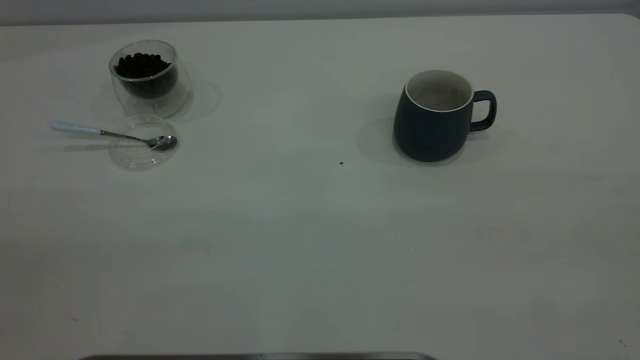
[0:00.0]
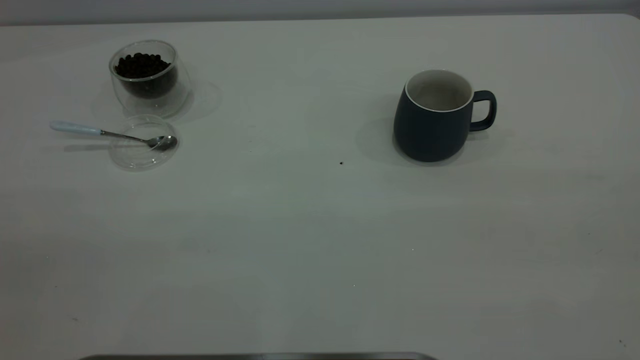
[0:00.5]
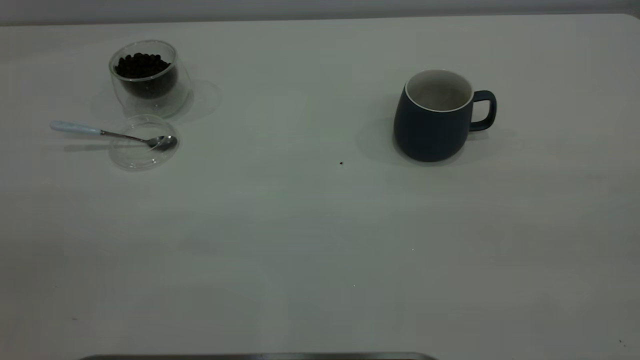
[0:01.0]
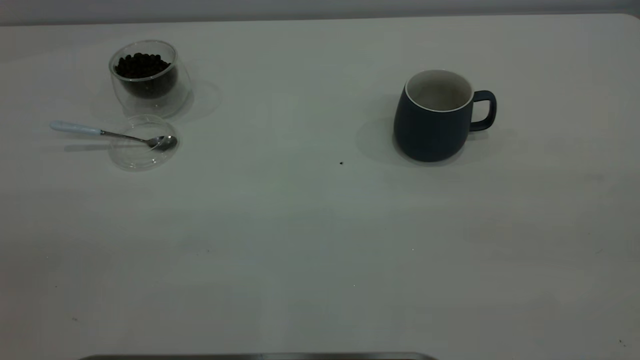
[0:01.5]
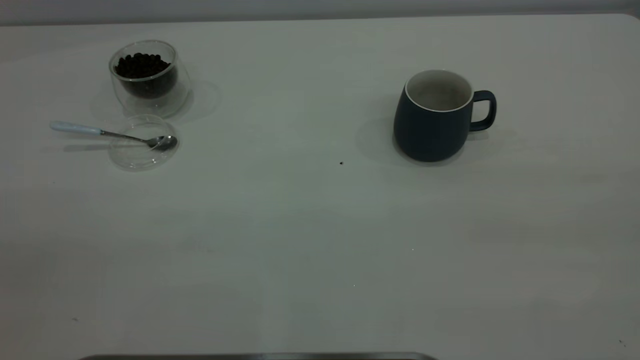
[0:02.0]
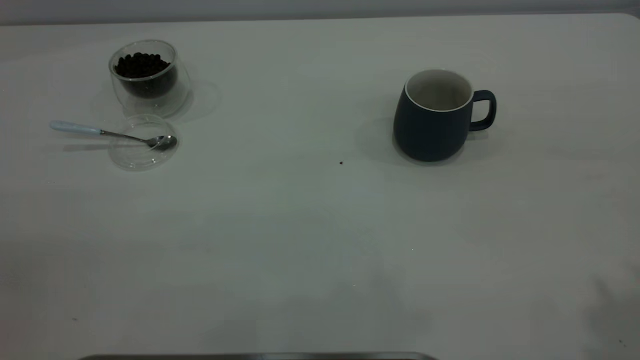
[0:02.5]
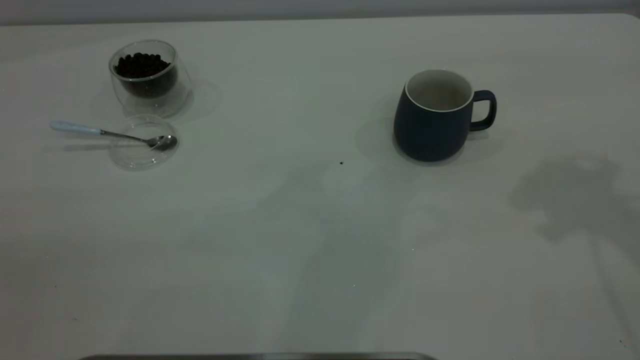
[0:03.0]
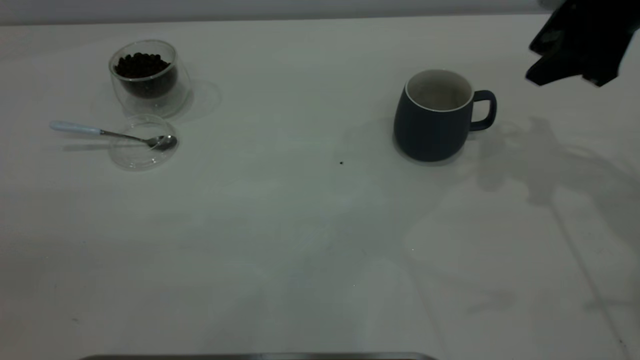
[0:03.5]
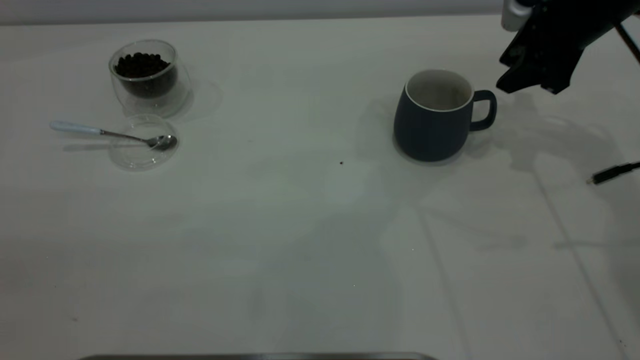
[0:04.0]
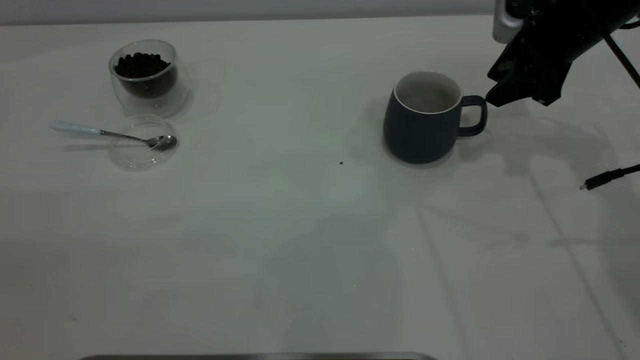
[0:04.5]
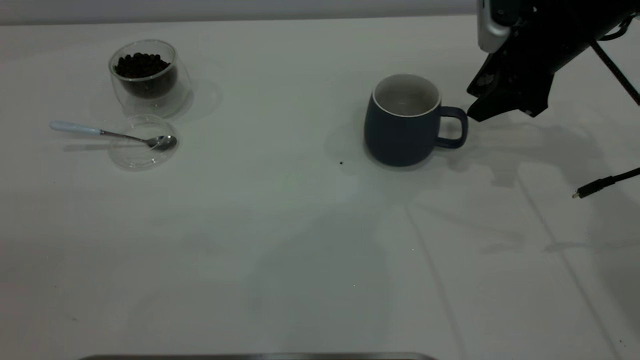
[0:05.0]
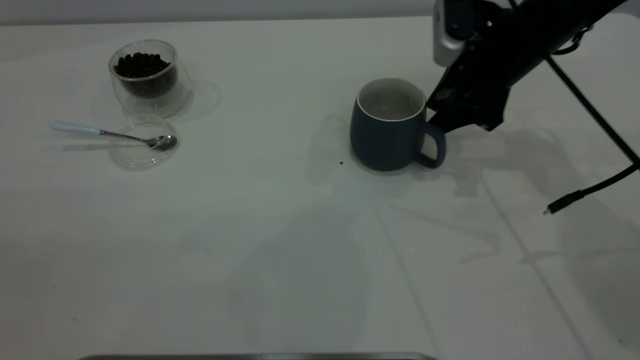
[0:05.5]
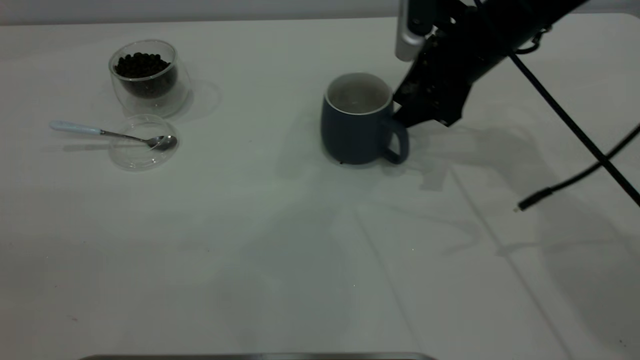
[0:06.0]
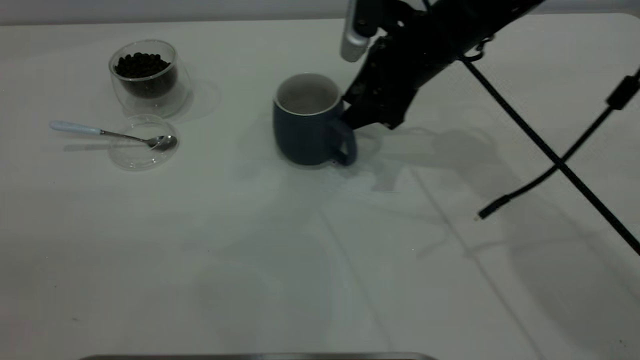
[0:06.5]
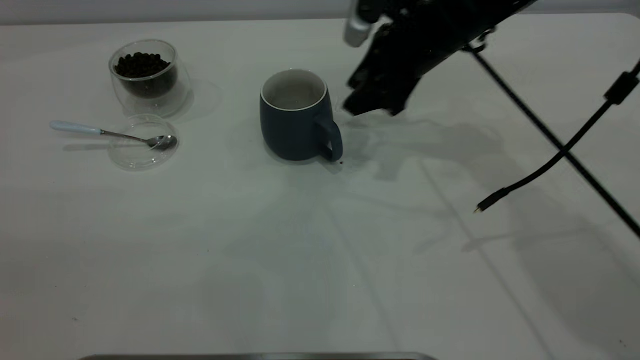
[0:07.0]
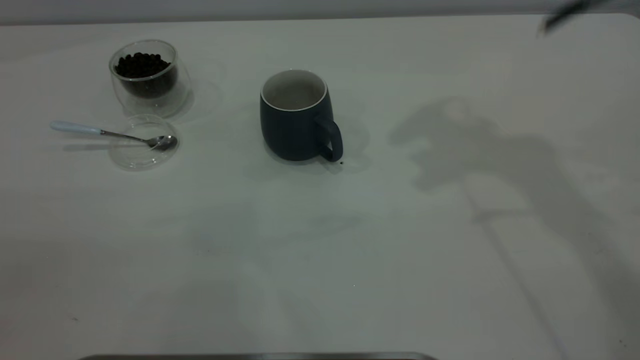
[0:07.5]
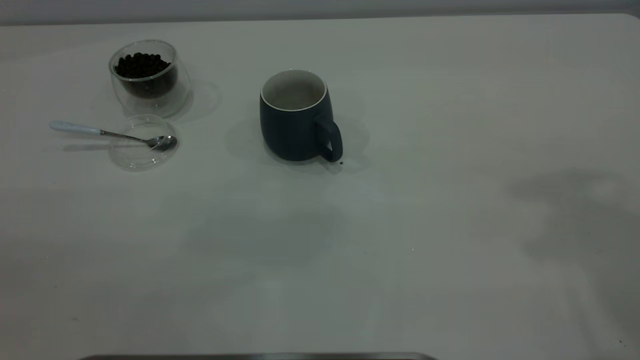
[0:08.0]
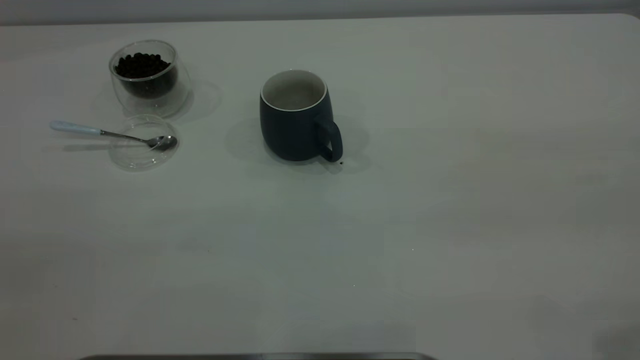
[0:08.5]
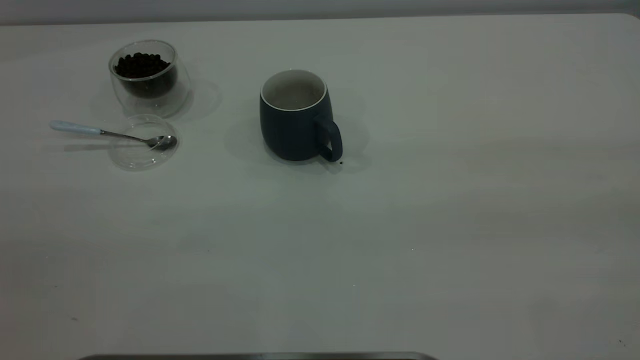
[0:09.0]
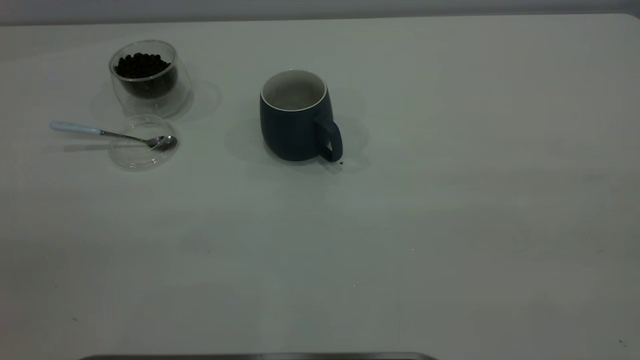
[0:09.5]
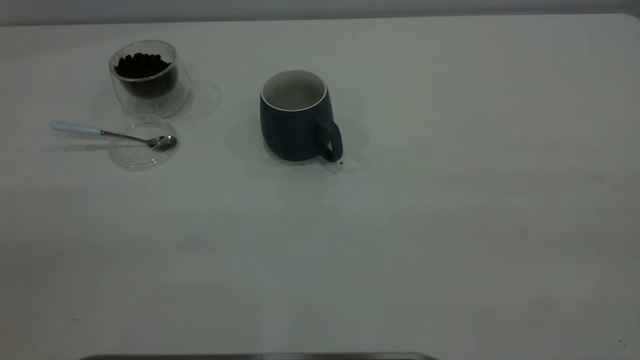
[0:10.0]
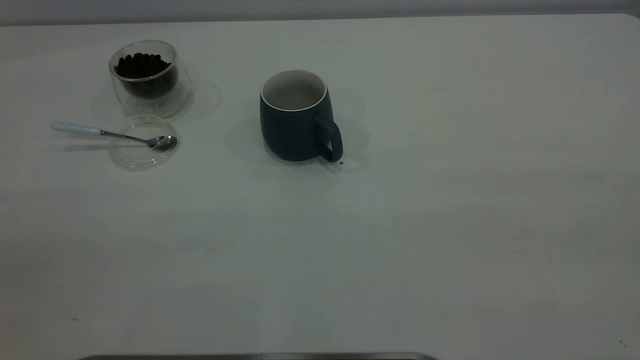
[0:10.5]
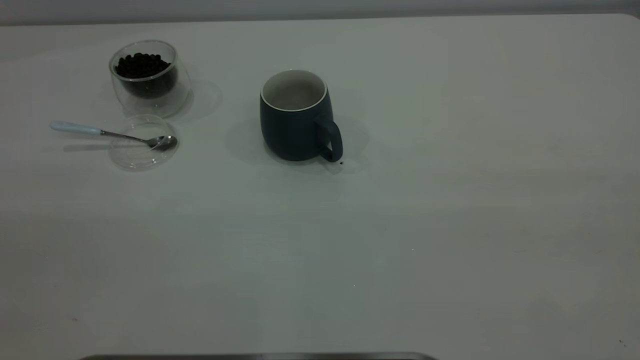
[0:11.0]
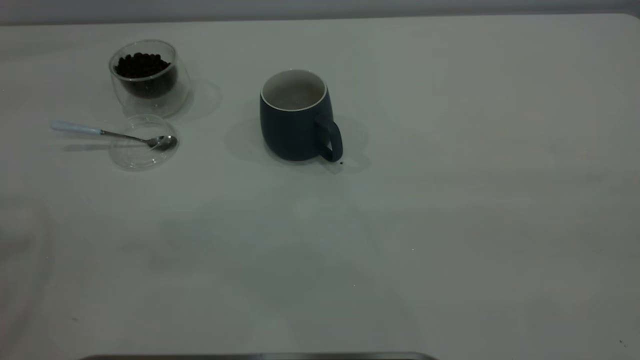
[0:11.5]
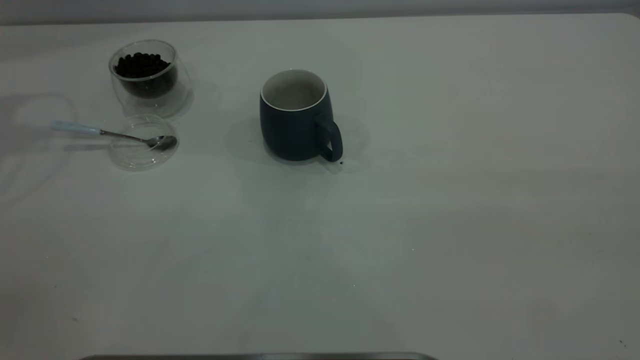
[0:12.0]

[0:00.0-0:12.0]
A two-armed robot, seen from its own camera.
Task of the whole recording: the right gripper place the grey cup in the center of the table, the left gripper take the blue spoon from the cup lid and scoop out the coffee beans from the coffee cup and put them into the grey cup, the left gripper put the spoon back into the cup lid.
Step, 0:00.0 to 0:07.0: Move the cup to the center of view.
0:02.0 to 0:04.0: The right gripper is displaced forward and downward by about 50 cm.
0:04.0 to 0:06.0: The right gripper heads to the left, covering roughly 10 cm.
0:06.0 to 0:08.0: The right gripper moves upward and backward, roughly 40 cm.

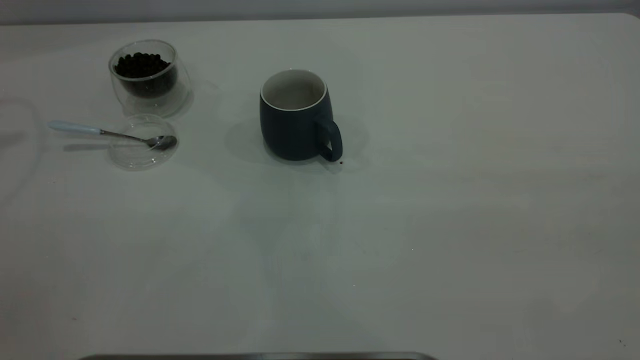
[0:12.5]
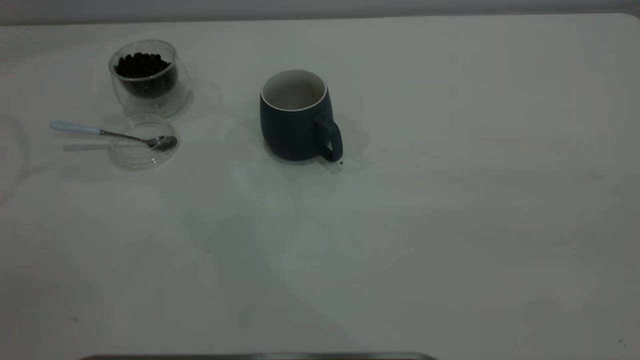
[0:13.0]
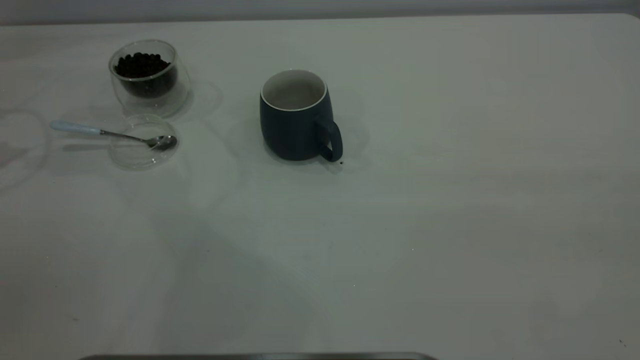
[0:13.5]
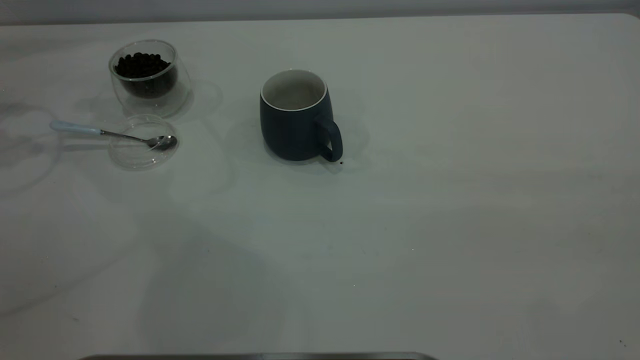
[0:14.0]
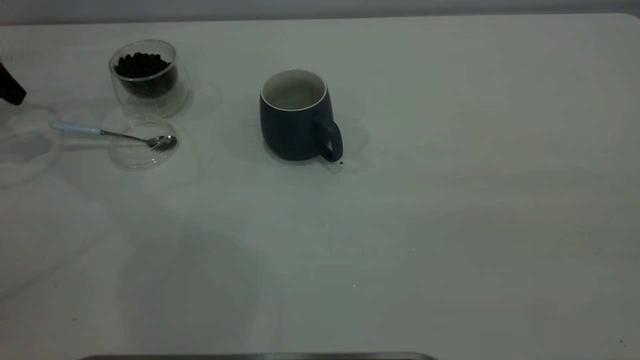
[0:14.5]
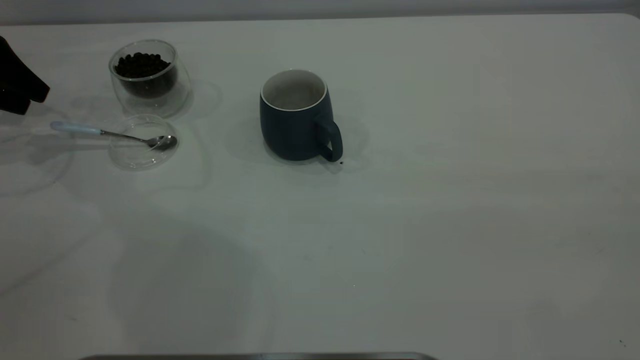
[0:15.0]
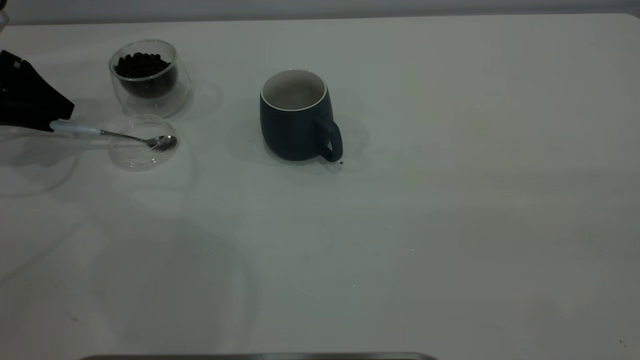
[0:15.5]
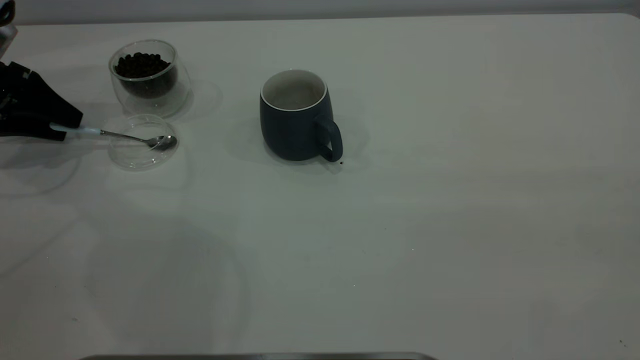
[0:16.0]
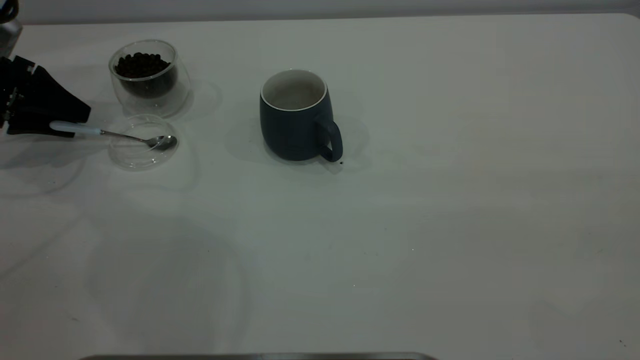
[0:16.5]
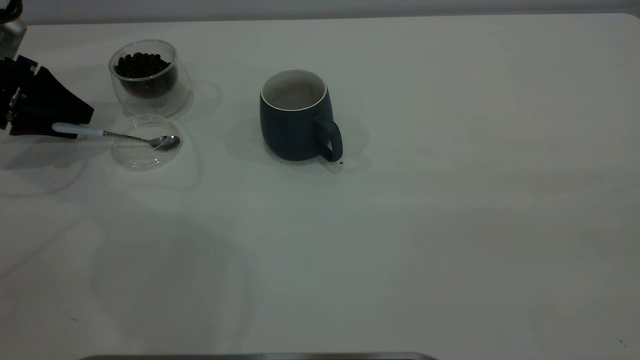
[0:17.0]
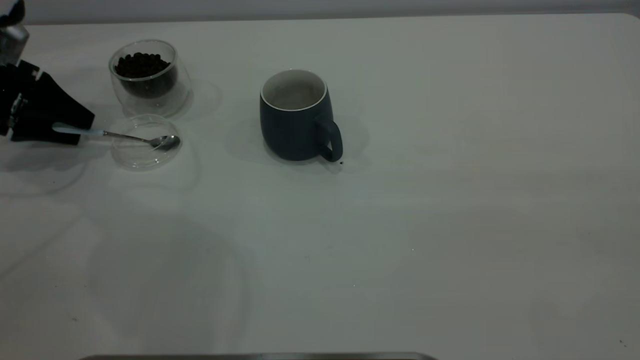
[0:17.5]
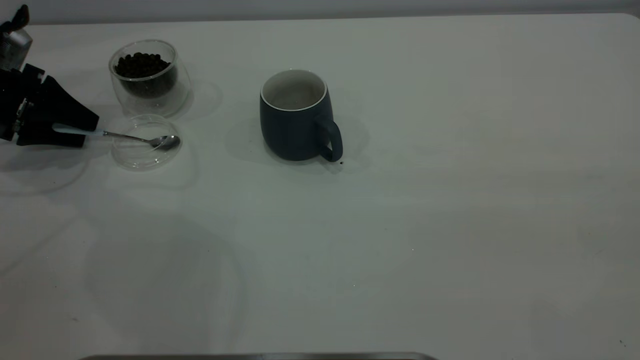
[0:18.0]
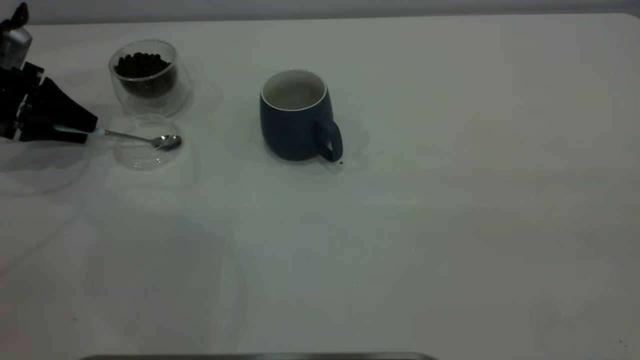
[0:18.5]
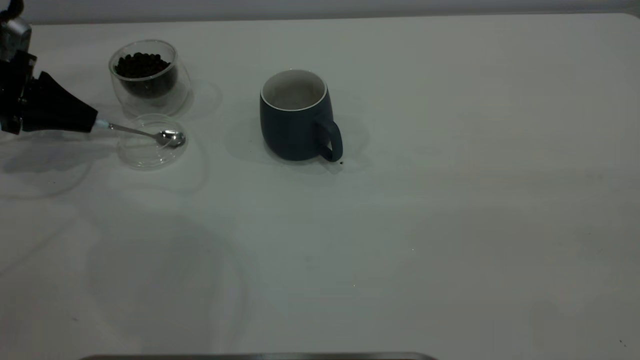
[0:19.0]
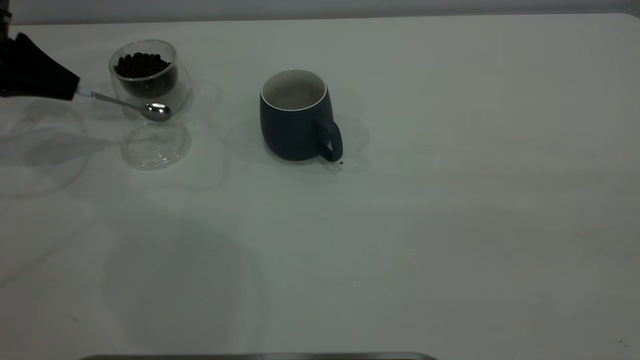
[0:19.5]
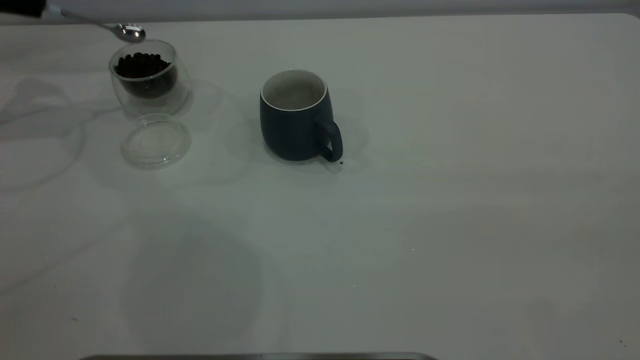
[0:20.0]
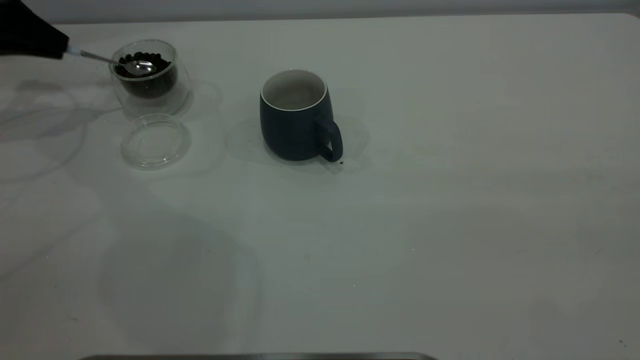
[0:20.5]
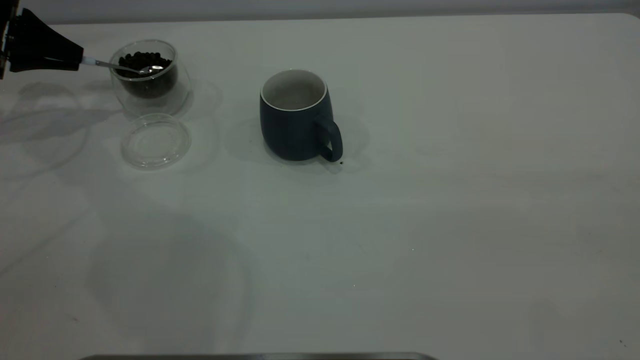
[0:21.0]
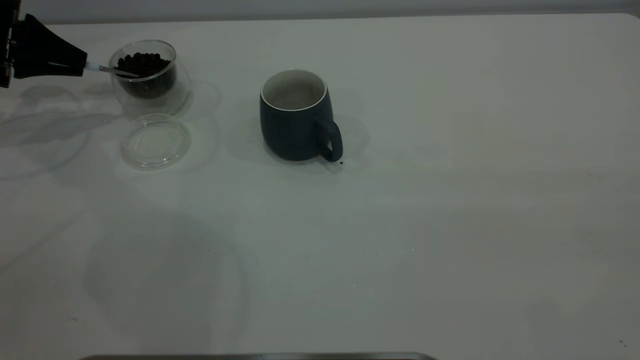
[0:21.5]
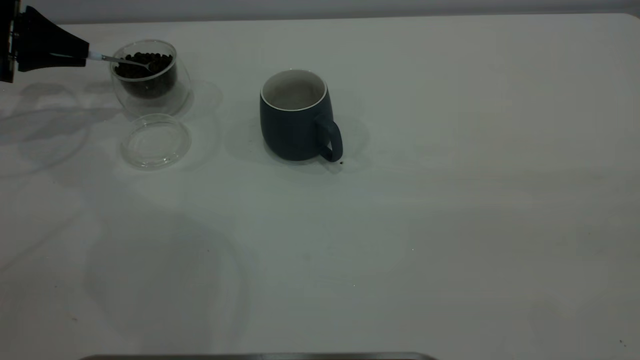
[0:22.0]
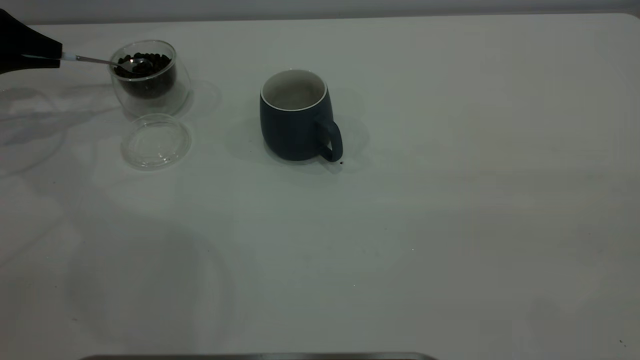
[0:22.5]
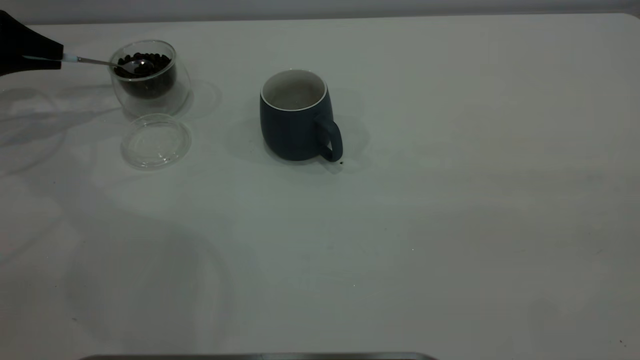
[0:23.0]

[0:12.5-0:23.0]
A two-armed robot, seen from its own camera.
Task of the whole recording: the right gripper place the grey cup in the center of the table, the left gripper take the blue spoon from the cup lid and scoop out the coffee beans from the coffee cup and put them into the grey cup, the left gripper put the spoon back into the cup lid.
Step, 0:12.5 to 0:19.5: Pick up the spoon.
0:14.5 to 0:16.5: The left gripper travels downward by roughly 5 cm.
0:16.5 to 0:19.0: The left gripper closes up.
0:19.0 to 0:21.0: The left gripper reaches some 15 cm upward, then returns.
0:21.0 to 0:23.0: There are only small adjustments of the grippers.
